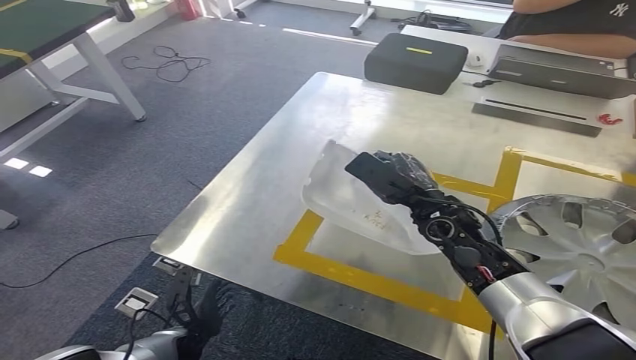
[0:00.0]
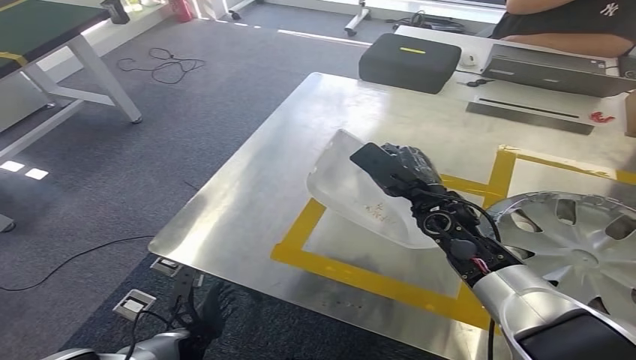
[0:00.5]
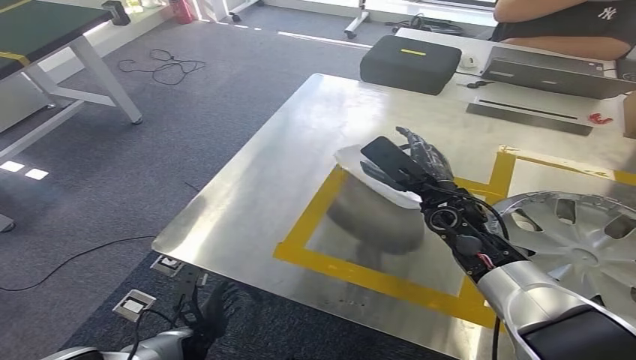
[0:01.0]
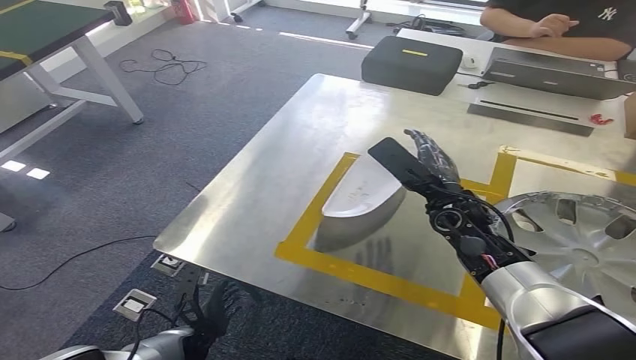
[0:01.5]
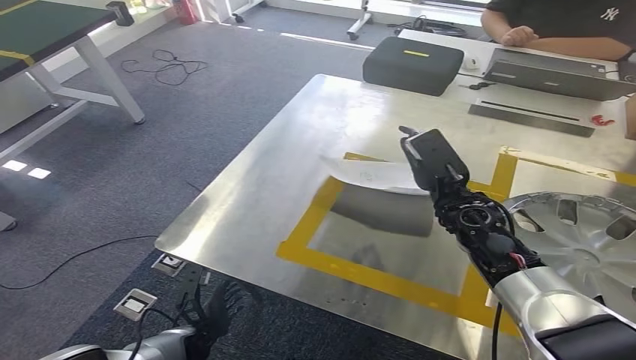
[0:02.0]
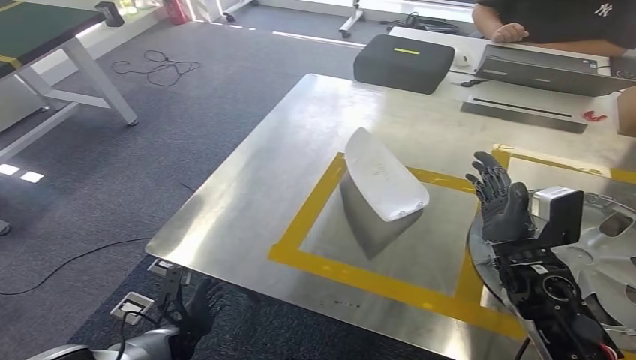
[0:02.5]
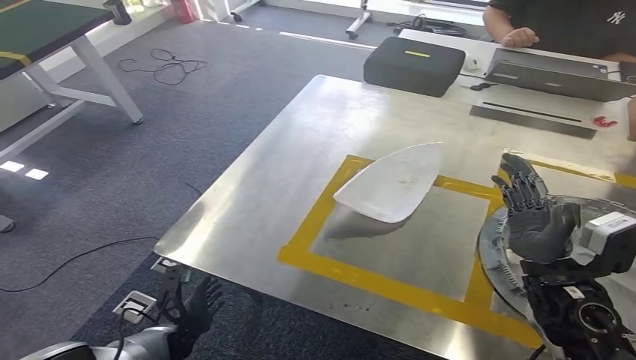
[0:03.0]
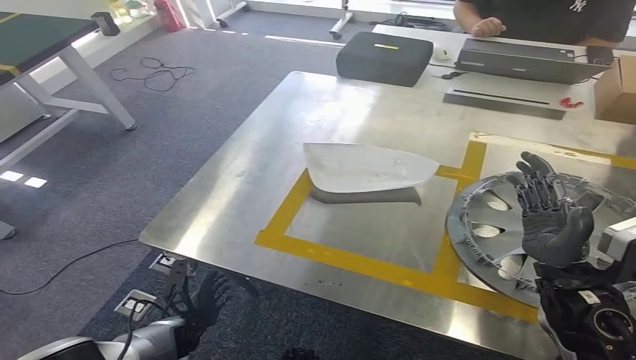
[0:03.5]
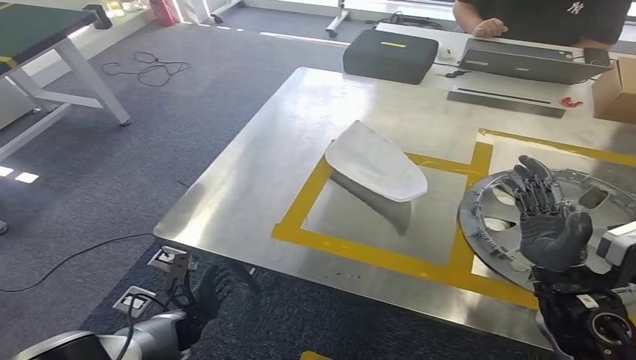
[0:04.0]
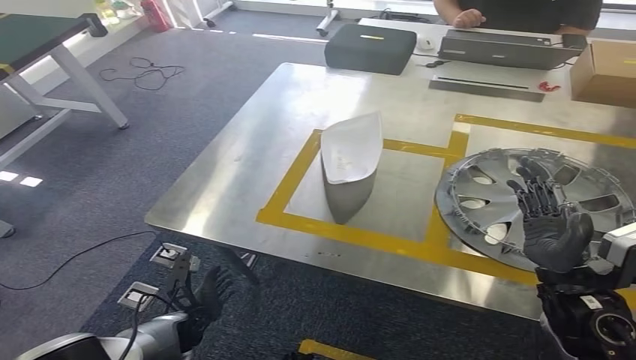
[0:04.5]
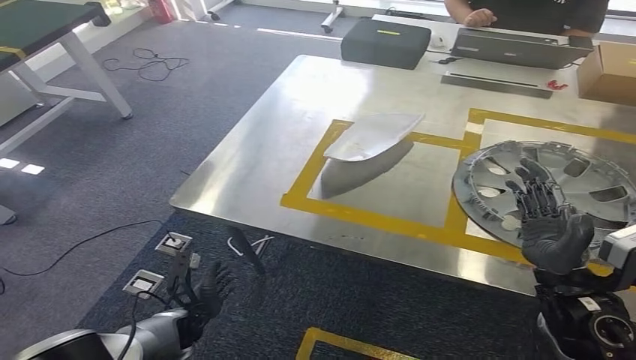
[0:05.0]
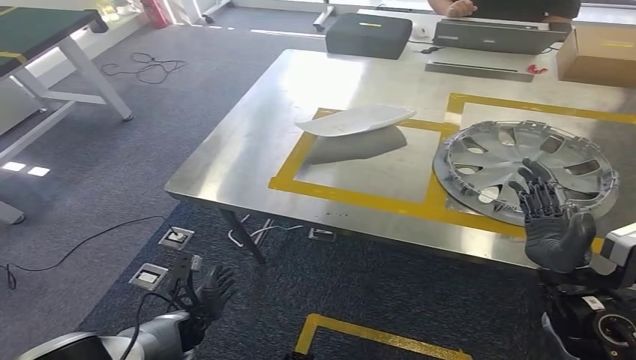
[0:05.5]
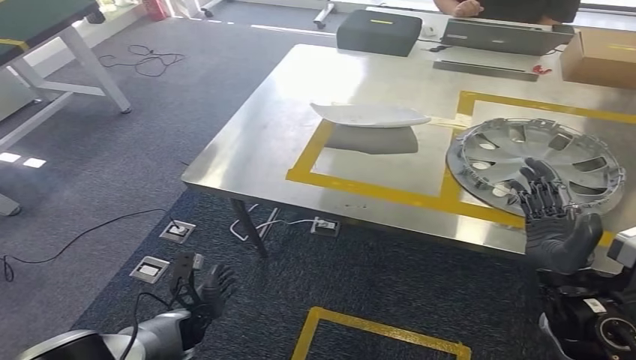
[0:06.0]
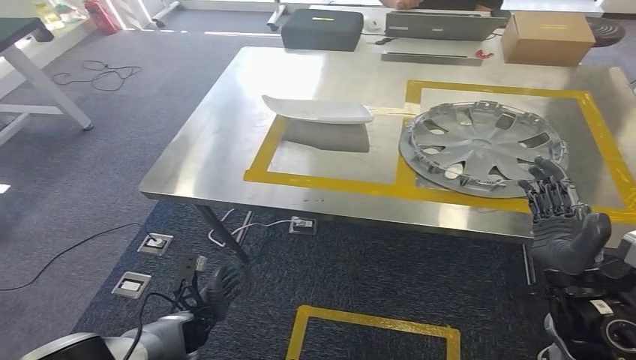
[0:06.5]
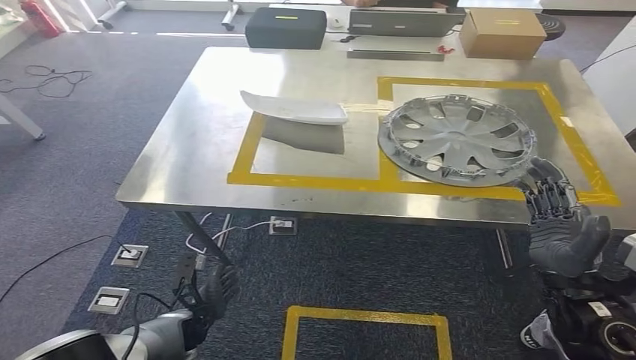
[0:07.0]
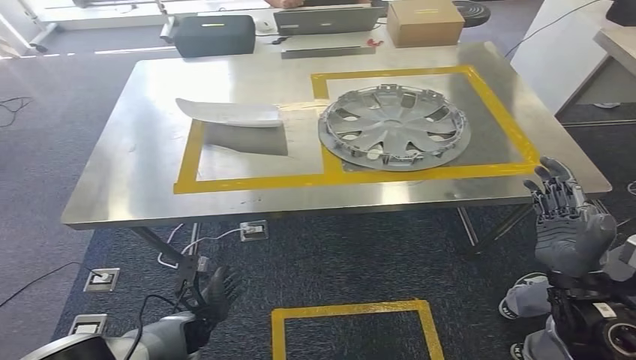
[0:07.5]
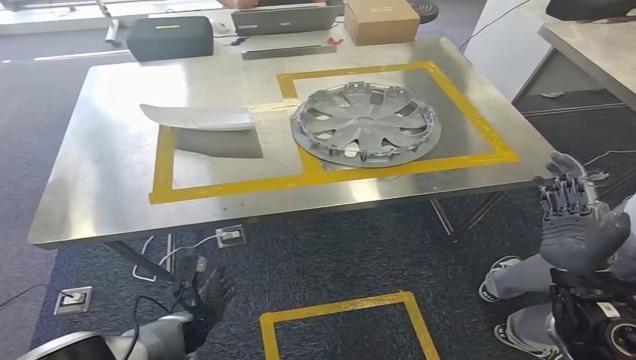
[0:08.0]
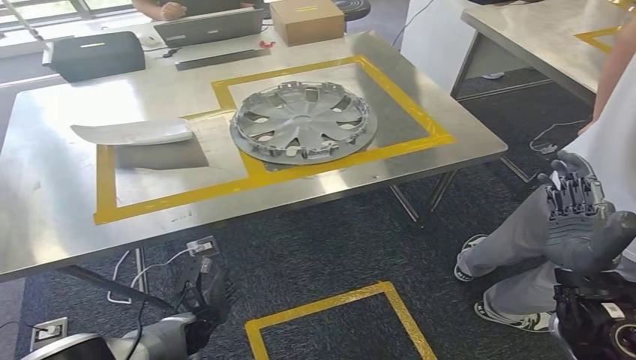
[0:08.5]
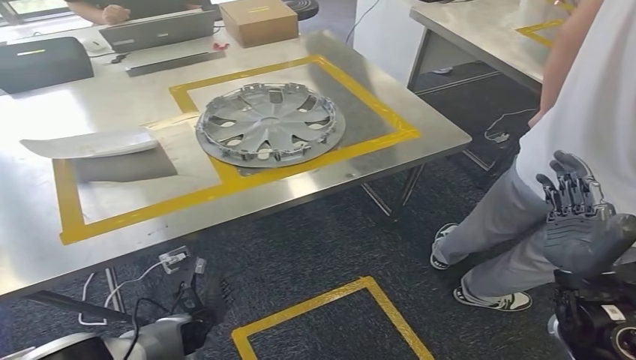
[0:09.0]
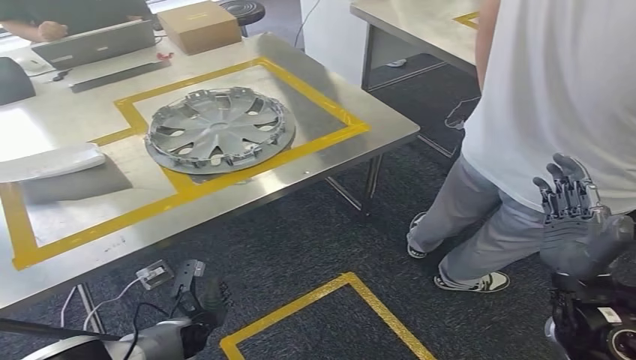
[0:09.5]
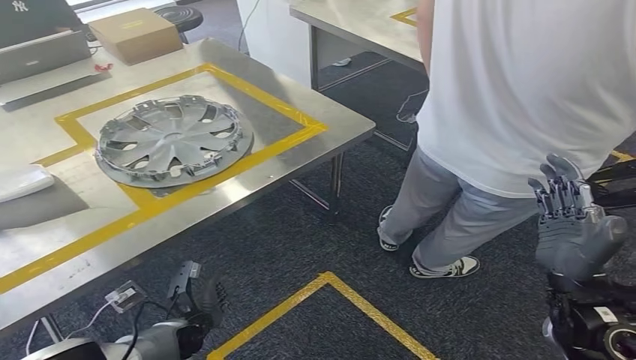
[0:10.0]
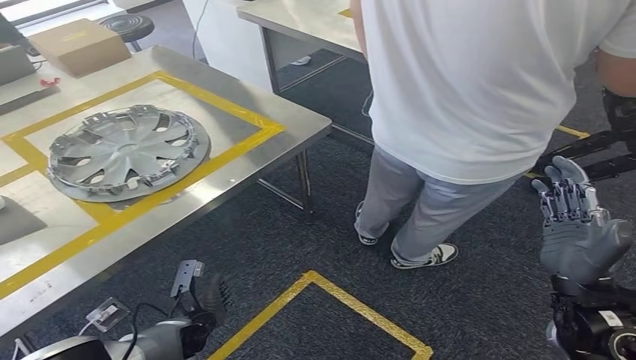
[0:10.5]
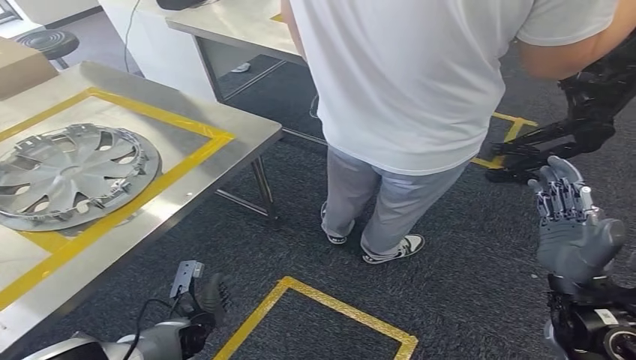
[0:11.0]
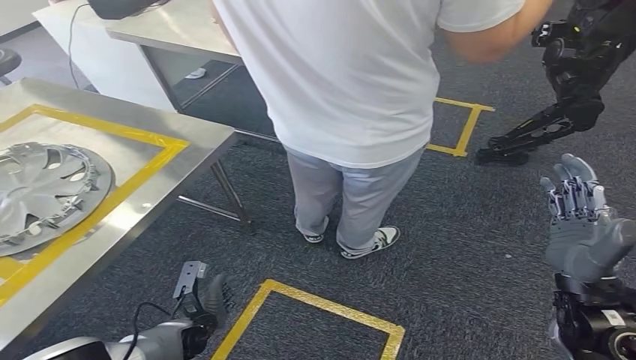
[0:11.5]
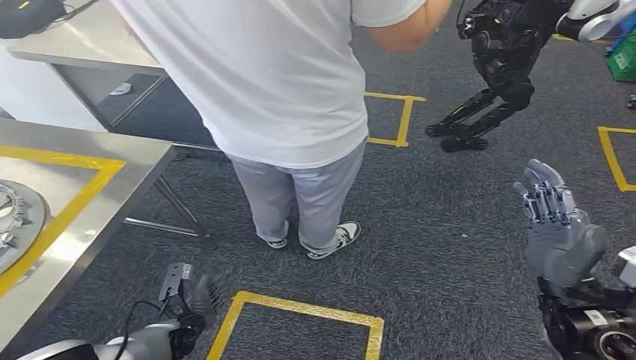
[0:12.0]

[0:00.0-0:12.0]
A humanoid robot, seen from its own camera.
Step, 0:00.0 to 0:06.0: Insert the small parts into the corresponding holes on the workbench.

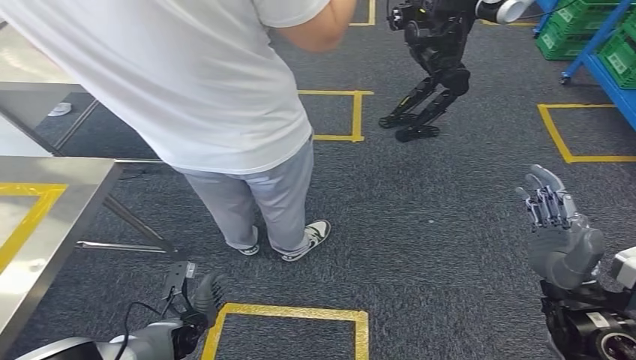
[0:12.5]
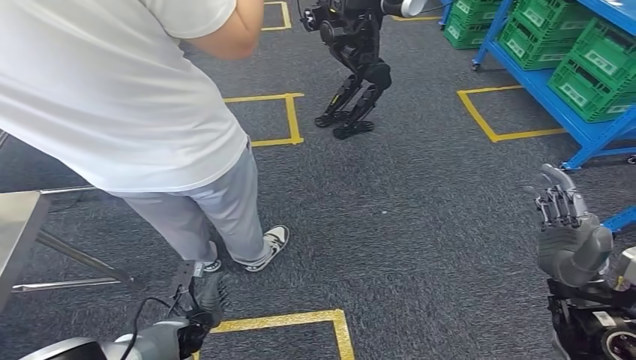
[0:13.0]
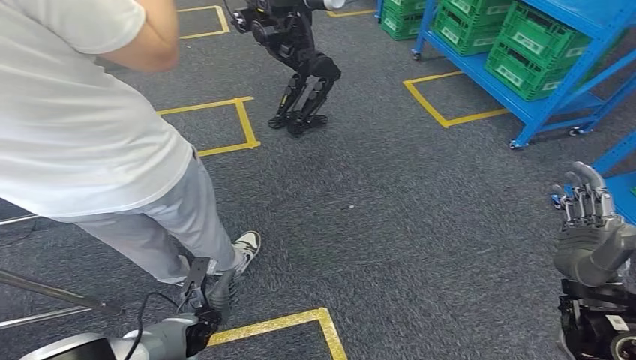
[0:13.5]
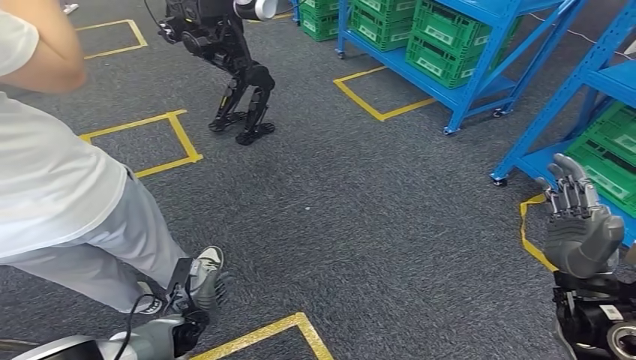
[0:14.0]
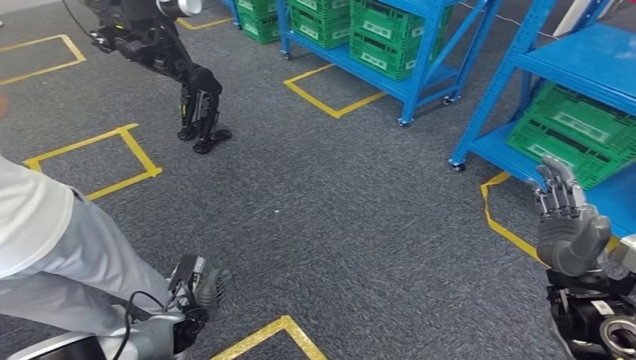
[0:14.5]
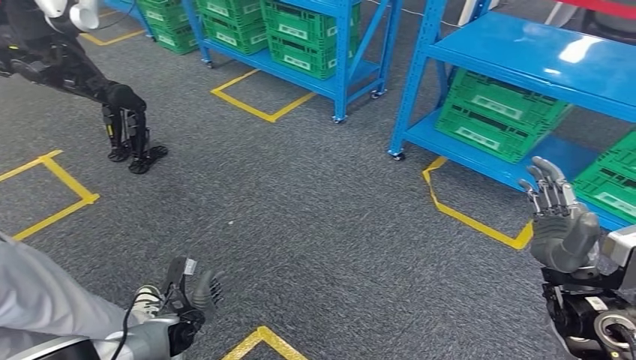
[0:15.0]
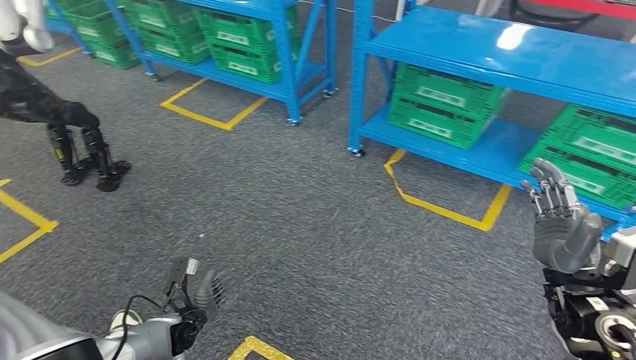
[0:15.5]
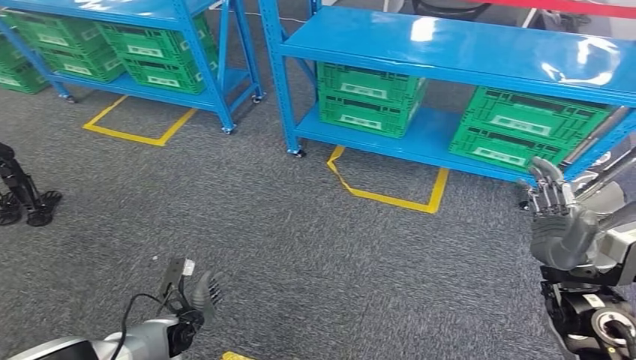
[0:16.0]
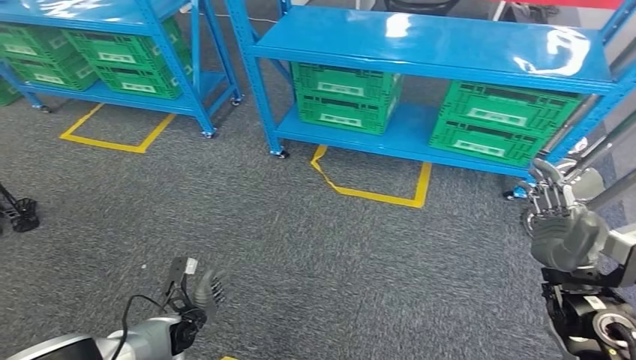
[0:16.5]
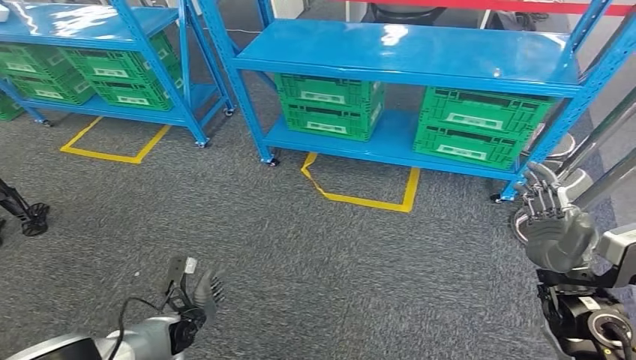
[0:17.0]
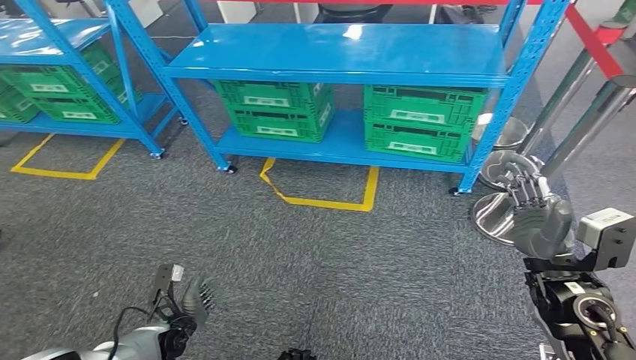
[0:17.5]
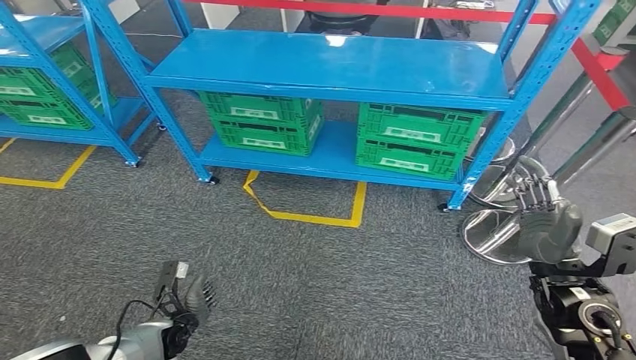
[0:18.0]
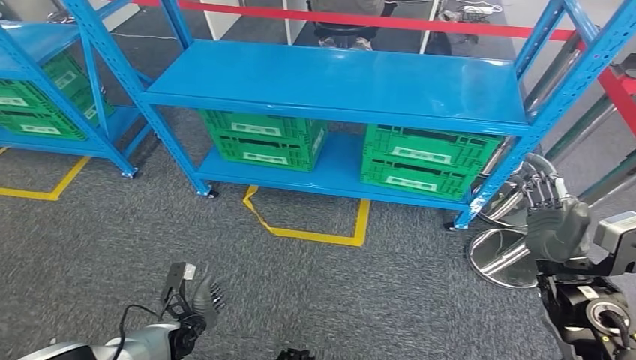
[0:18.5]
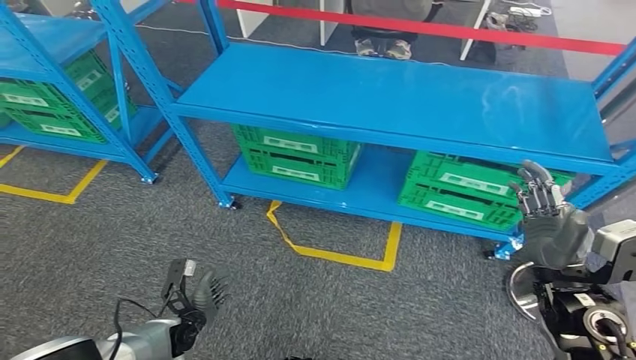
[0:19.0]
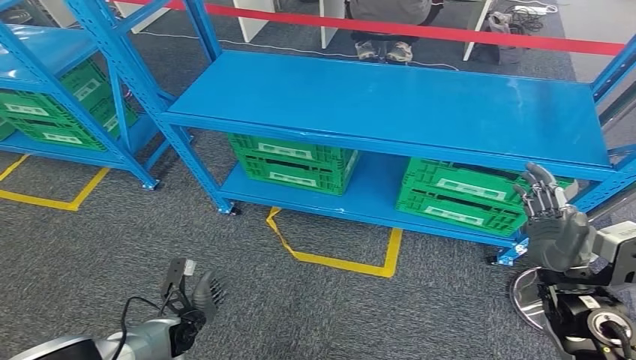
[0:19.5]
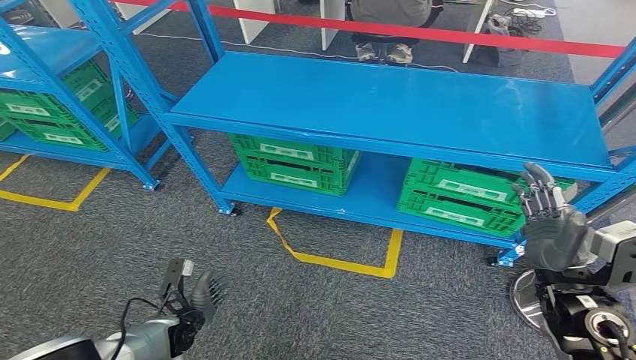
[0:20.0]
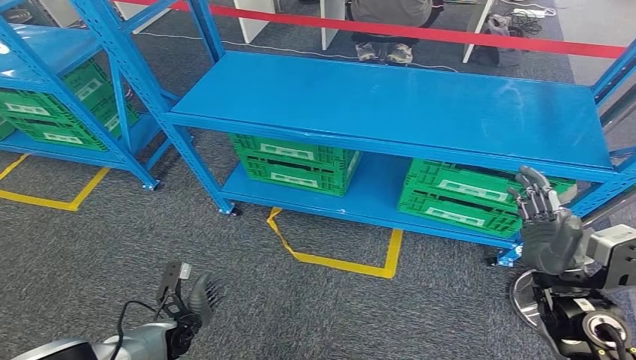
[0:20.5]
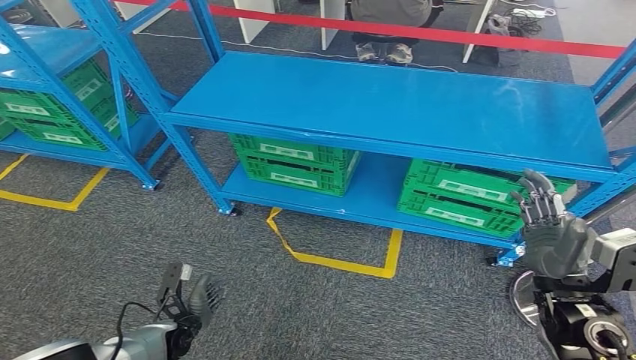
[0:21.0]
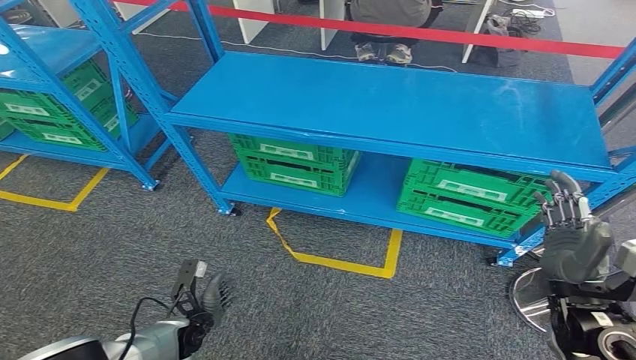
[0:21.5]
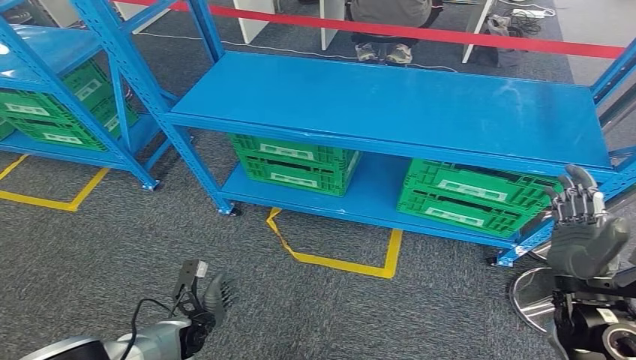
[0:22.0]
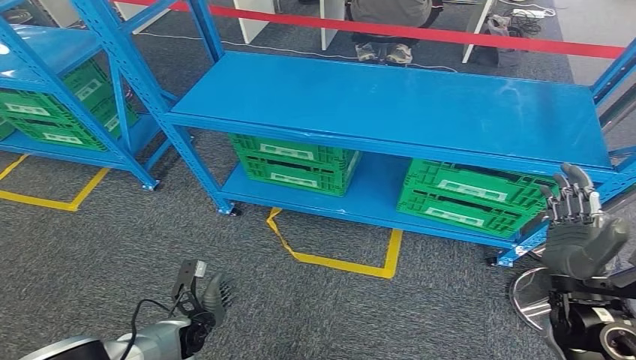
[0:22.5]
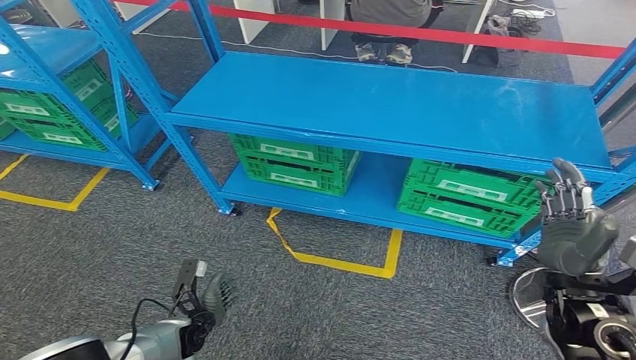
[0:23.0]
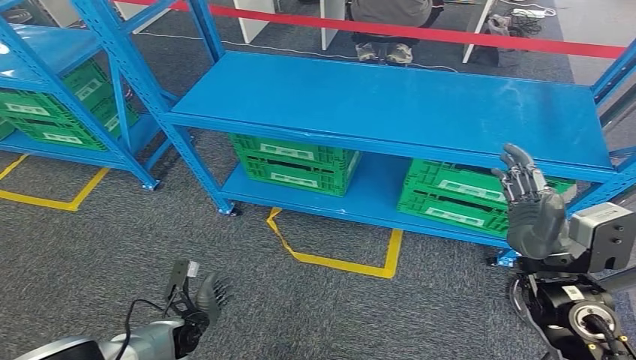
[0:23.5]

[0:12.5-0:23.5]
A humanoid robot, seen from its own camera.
Step, 0:12.5 to 0:23.5: Move to the initial position of the workbench.
0:20.0 to 0:21.5: There are only small adjustments of the hands.
0:21.5 to 0:23.5: The right hand ends up about 5 cm from where it was.
